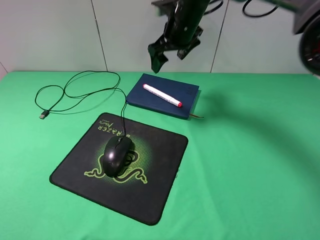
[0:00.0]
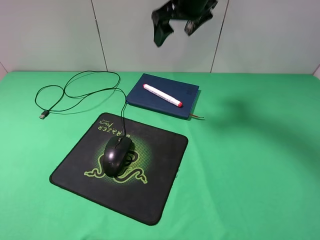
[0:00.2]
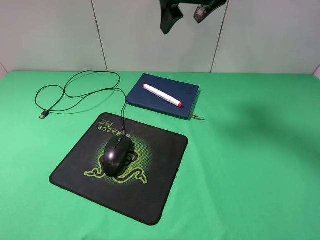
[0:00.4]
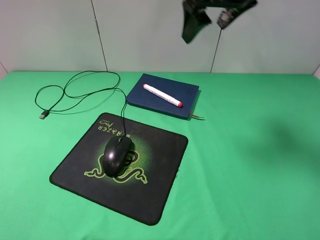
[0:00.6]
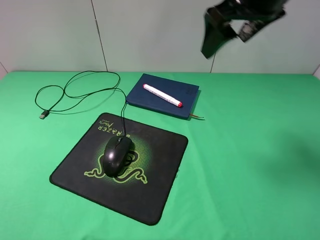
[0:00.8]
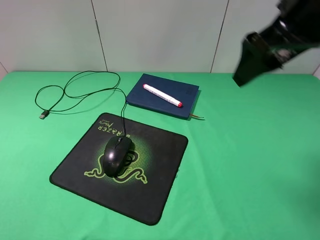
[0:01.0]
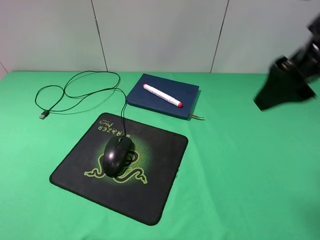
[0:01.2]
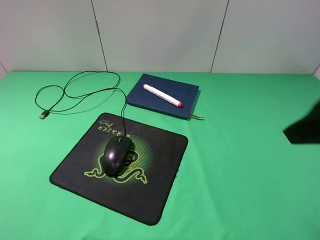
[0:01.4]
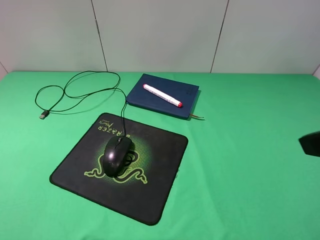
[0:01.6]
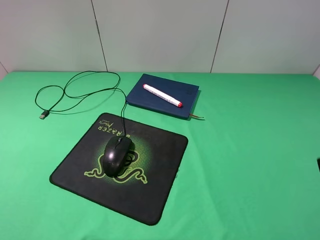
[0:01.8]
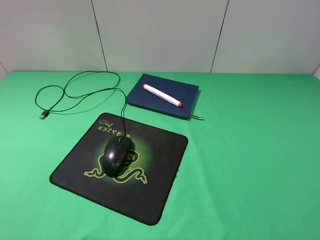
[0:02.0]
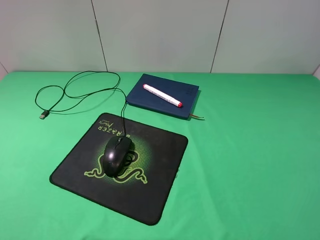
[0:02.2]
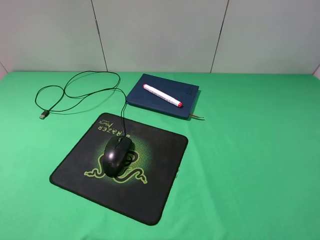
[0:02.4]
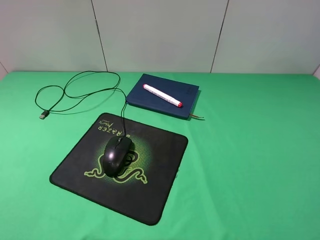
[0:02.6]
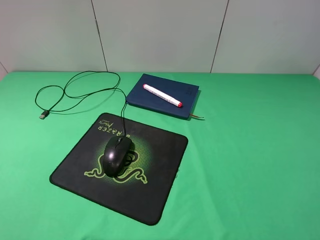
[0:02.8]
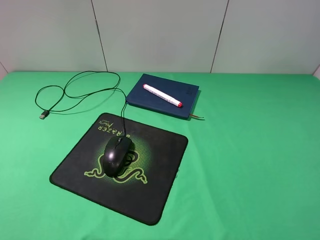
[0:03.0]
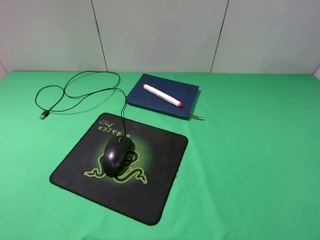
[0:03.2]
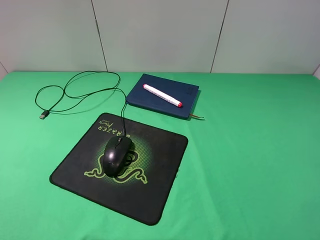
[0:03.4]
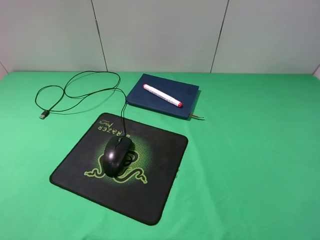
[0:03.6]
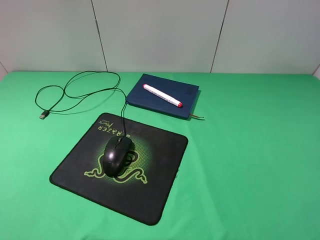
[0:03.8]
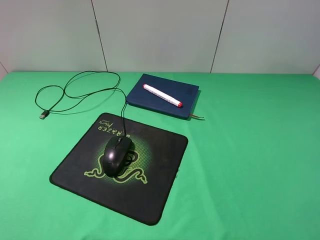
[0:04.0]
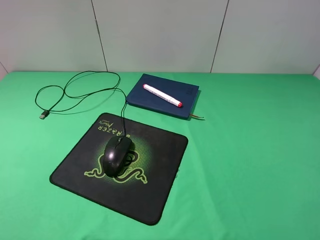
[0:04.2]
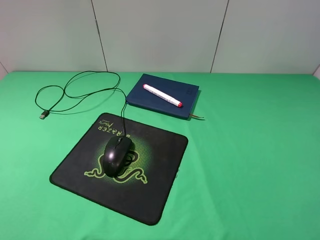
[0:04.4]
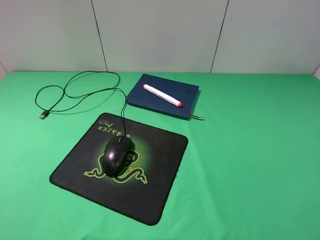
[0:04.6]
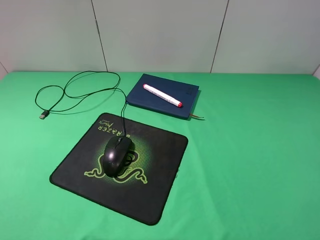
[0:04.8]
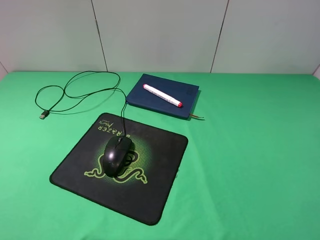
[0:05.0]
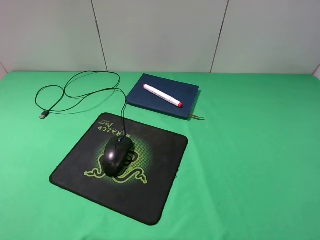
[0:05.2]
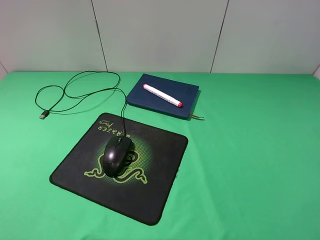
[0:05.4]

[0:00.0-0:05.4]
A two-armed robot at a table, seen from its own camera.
0:00.0 to 0:01.4: The right gripper travels backward and to the right by about 35 cm.
0:01.4 to 0:02.8: The right gripper heads backward, to the right and downward, covering some 15 cm.
0:04.0 to 0:05.4: Both grippers stay about where they are.
